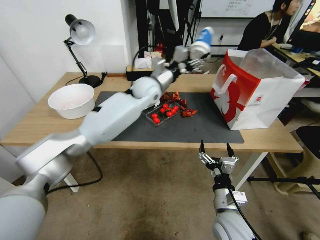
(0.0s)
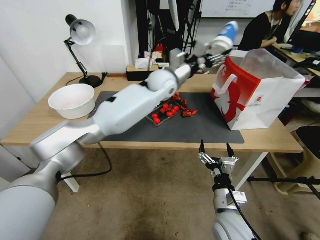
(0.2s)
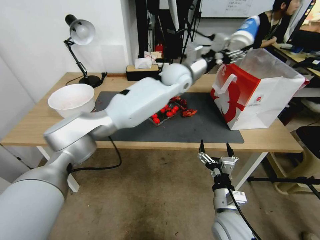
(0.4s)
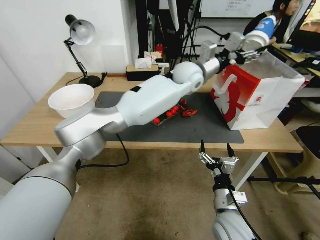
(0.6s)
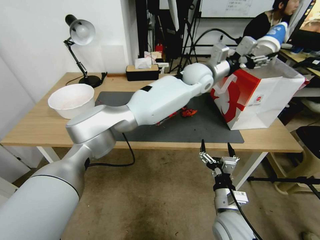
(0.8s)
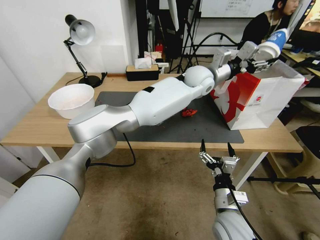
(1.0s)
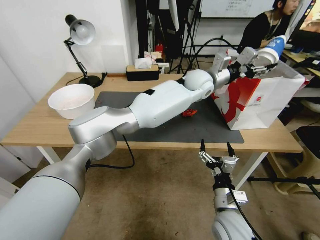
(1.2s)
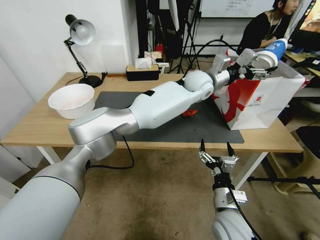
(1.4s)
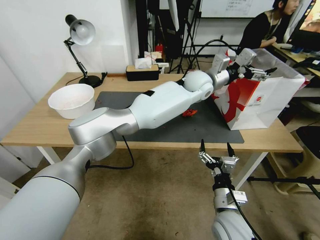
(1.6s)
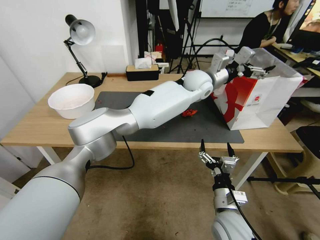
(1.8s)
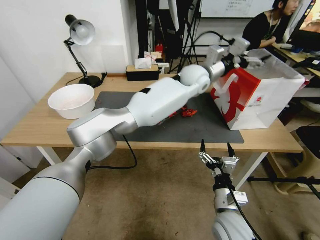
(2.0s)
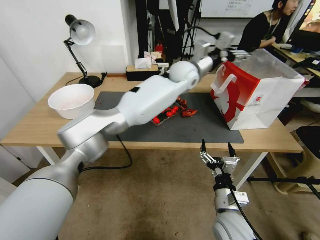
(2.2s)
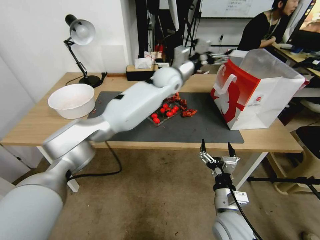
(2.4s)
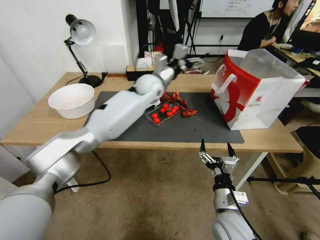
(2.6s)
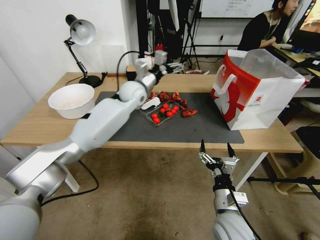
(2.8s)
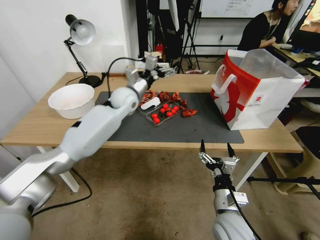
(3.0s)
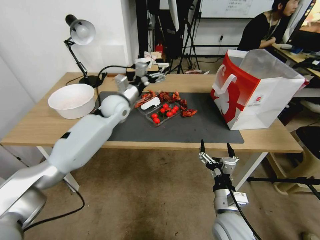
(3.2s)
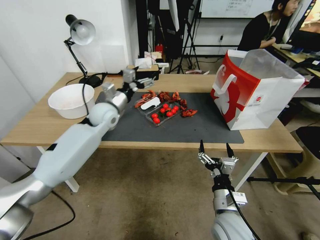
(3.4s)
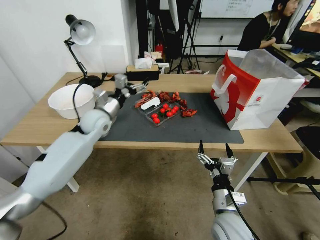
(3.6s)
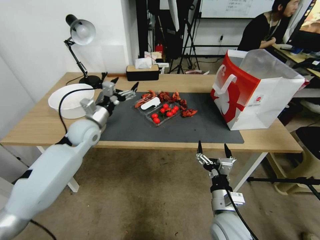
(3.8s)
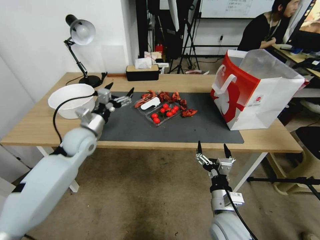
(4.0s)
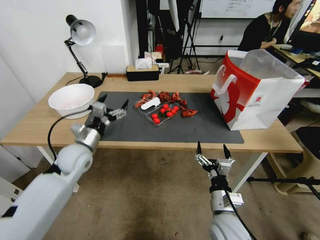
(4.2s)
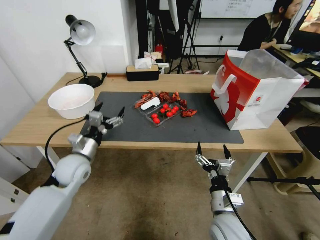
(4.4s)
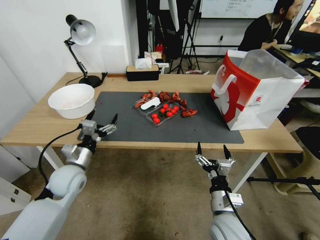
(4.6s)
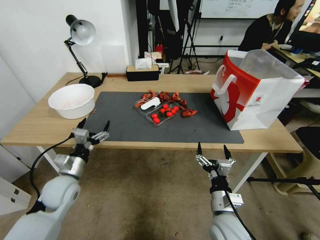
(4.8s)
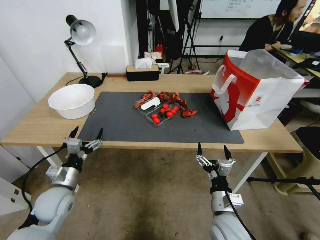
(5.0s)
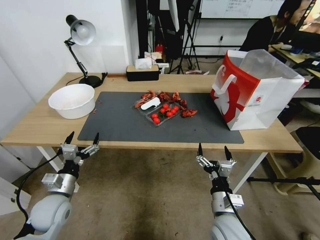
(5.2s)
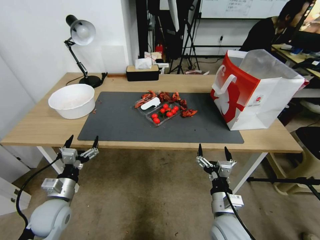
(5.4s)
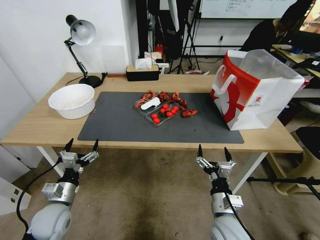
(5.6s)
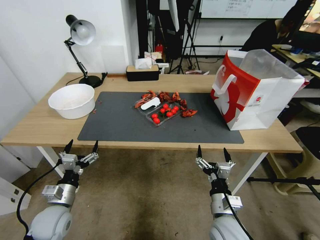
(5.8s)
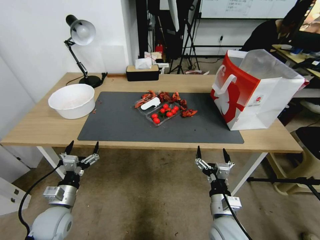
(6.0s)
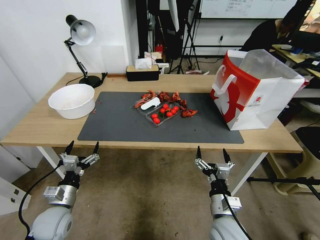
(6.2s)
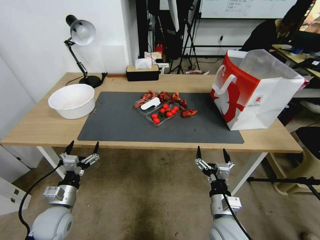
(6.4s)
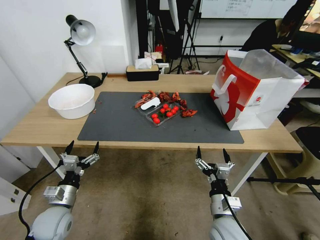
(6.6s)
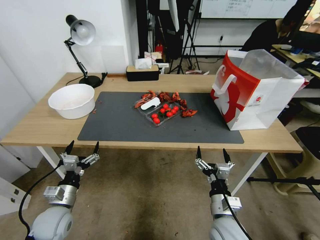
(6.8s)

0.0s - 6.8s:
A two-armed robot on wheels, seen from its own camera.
0.0s - 1.4s: The left gripper is displaced to the right by roughly 15 cm, and opens up.
1.4s - 2.8s: The left gripper moves to the left, approximately 25 cm, and opens its fingers.
2.8s - 4.0s: The left gripper travels to the left, backward and downward by approximately 25 cm.
4.0s - 5.4s: The left gripper goes about 20 cm backward and downward.
5.4s - 6.8s: The grippers move only a little.
